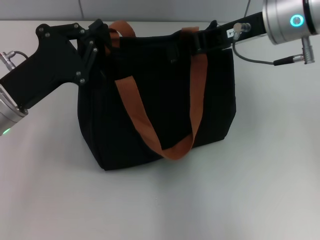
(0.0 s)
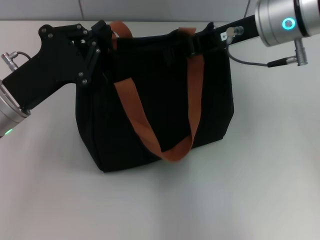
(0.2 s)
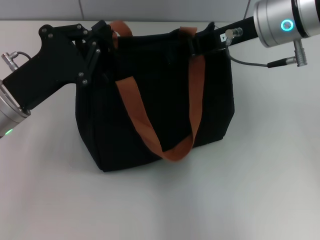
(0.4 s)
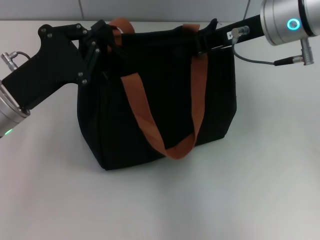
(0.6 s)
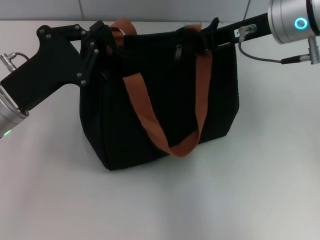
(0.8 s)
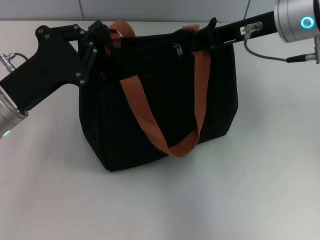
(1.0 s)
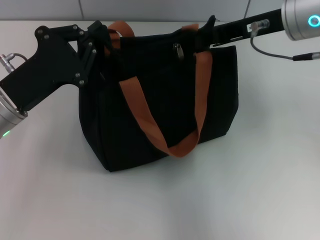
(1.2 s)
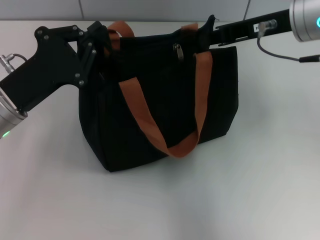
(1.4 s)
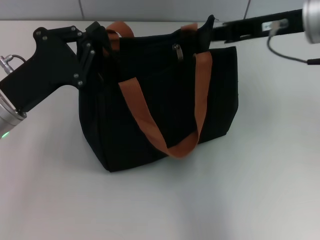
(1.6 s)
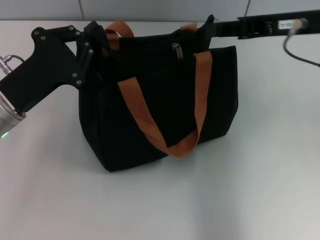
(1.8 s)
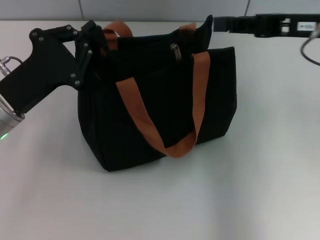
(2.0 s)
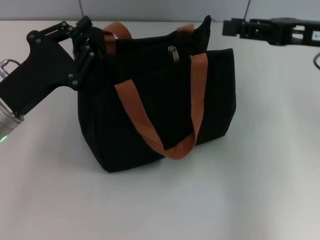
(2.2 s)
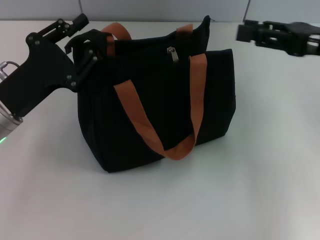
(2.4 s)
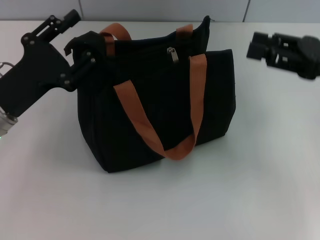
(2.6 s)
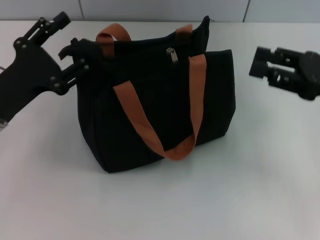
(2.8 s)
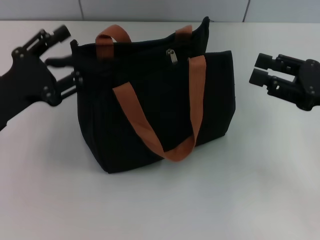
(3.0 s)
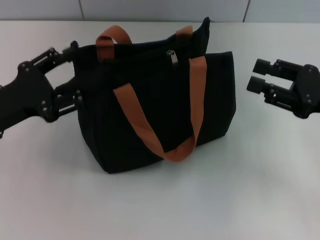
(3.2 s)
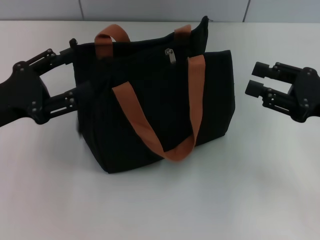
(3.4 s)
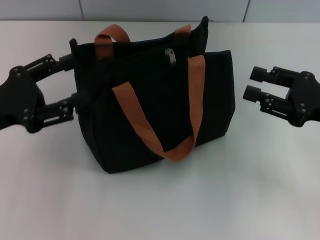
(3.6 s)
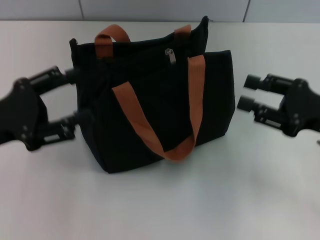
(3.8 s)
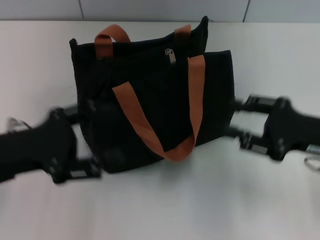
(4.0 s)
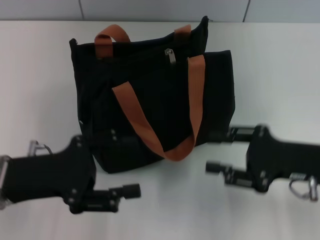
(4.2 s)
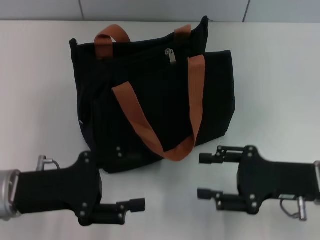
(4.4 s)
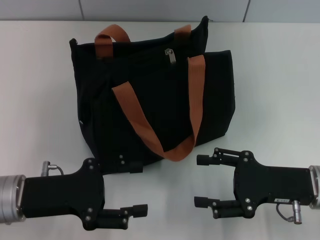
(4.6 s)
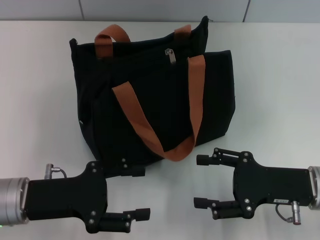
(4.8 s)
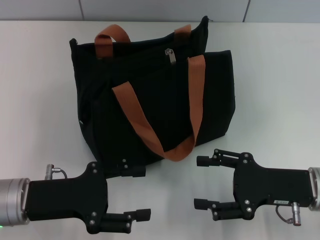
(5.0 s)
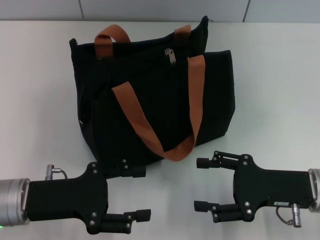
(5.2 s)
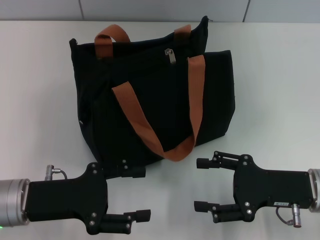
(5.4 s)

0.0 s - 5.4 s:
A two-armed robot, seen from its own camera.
Step, 1.8 s - 3.2 s: Grab the zipper with your left hand.
0.0 s - 1.4 s: There are only small adjustments of the grippers.
1.4 s - 2.8 s: The left gripper opens its fingers; the right gripper shifts roughly 15 cm to the right, downward and backward, and opens its fingers.
2.8 s - 4.0 s: The right gripper ends up about 5 cm from where it was.
4.0 s - 5.4 s: The right gripper moves about 5 cm. The left gripper is displaced downward by roughly 5 cm.
